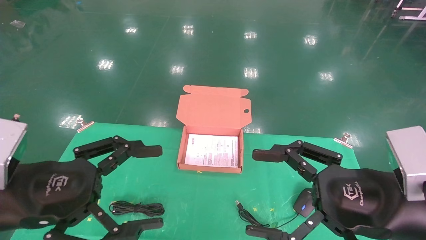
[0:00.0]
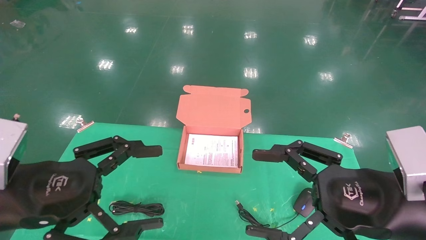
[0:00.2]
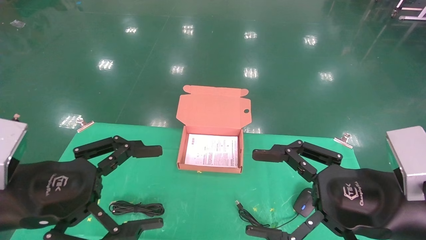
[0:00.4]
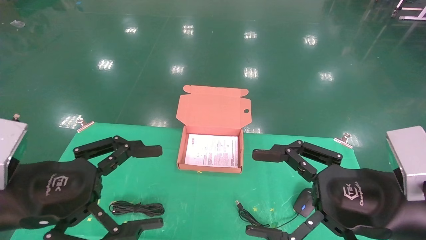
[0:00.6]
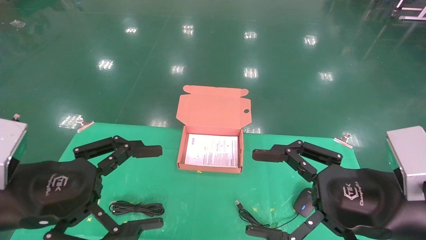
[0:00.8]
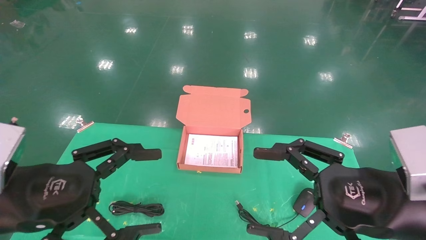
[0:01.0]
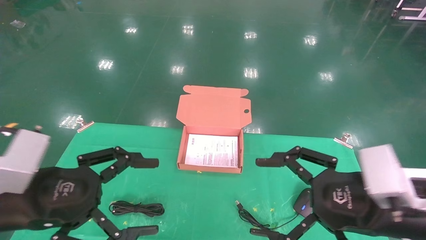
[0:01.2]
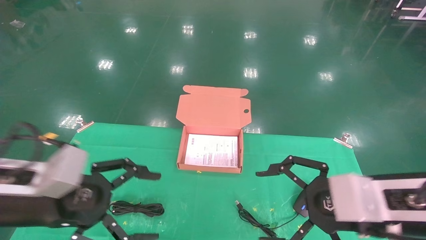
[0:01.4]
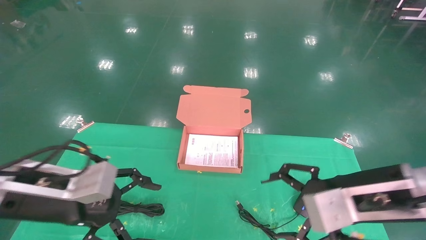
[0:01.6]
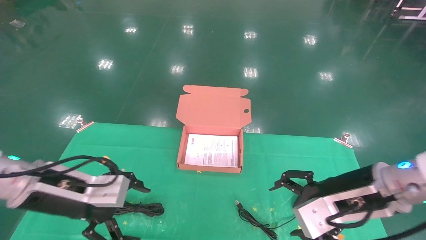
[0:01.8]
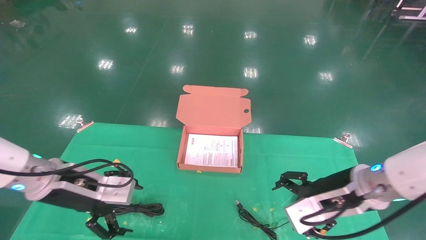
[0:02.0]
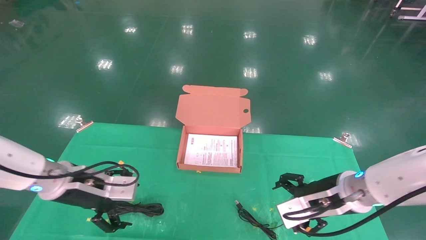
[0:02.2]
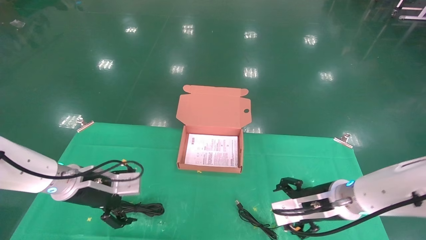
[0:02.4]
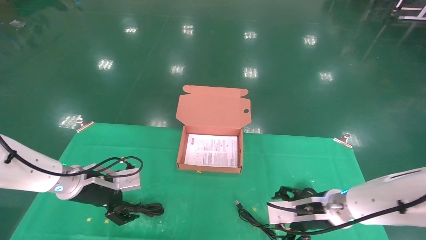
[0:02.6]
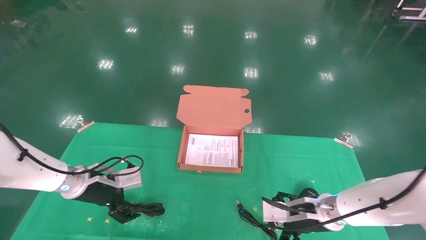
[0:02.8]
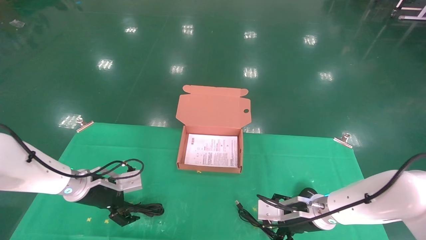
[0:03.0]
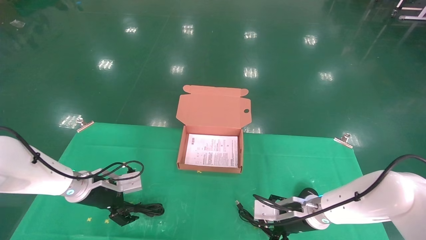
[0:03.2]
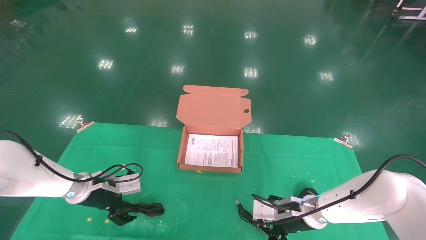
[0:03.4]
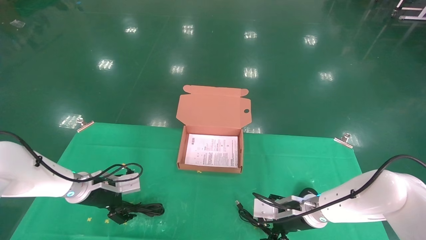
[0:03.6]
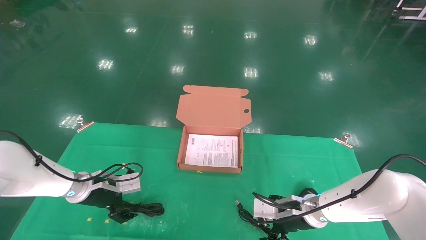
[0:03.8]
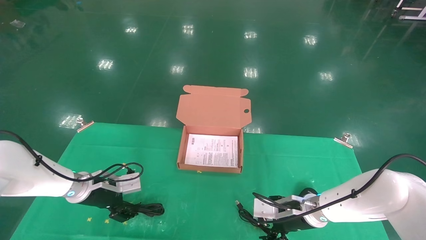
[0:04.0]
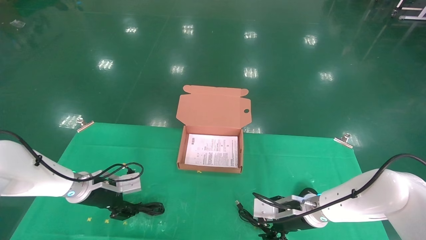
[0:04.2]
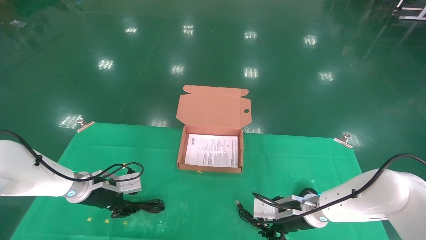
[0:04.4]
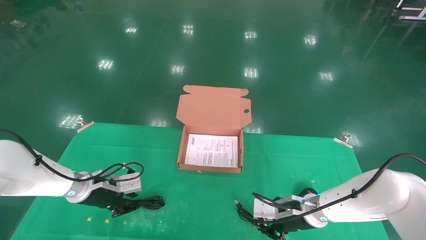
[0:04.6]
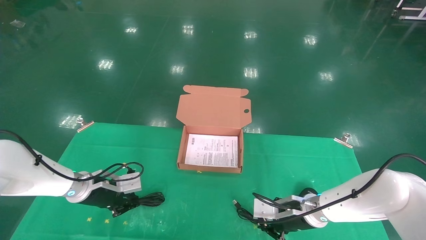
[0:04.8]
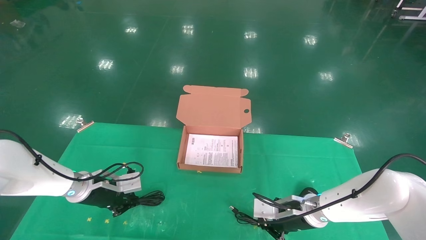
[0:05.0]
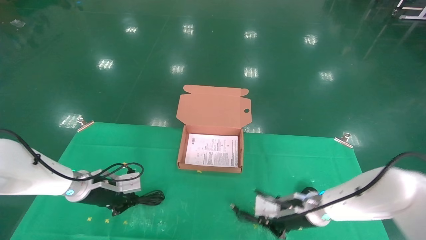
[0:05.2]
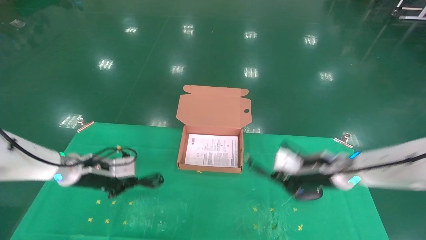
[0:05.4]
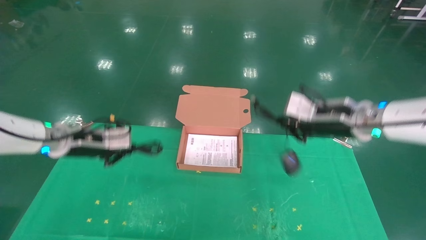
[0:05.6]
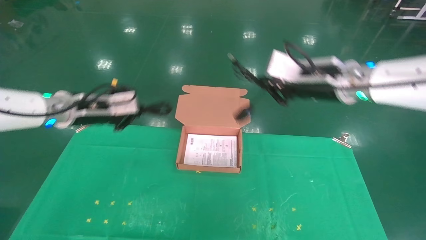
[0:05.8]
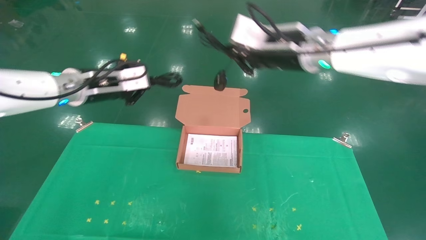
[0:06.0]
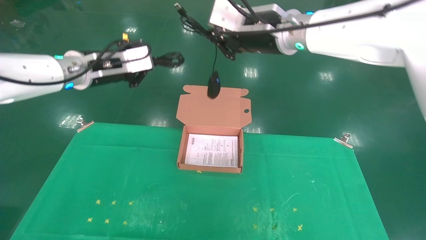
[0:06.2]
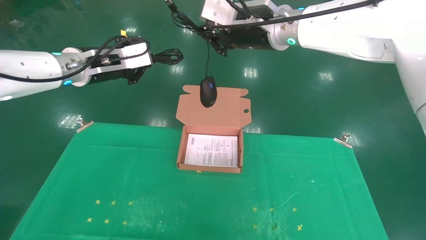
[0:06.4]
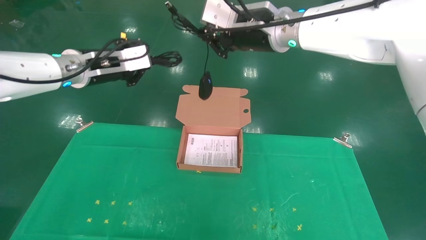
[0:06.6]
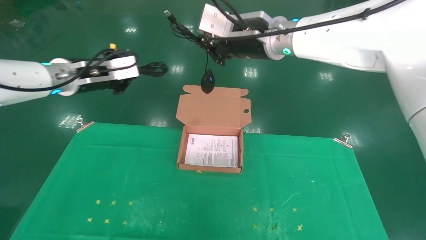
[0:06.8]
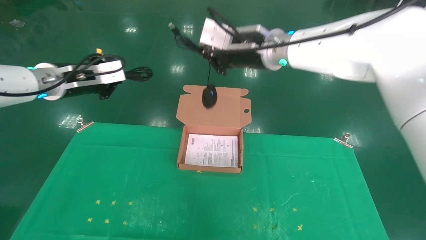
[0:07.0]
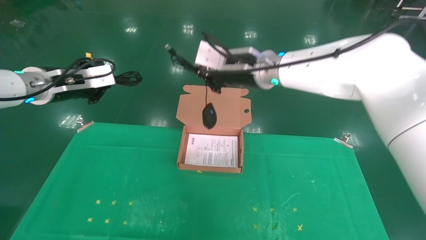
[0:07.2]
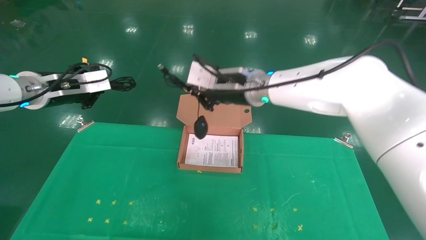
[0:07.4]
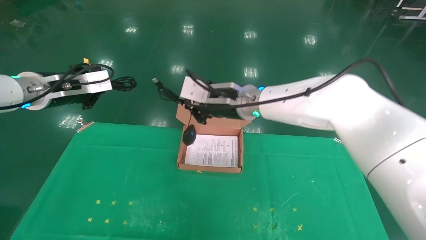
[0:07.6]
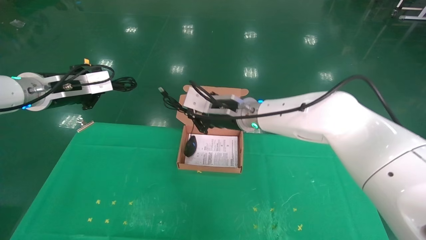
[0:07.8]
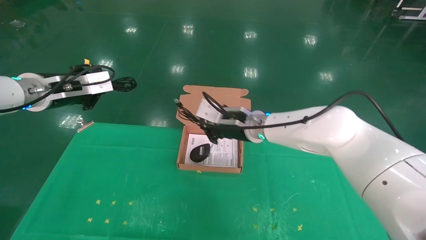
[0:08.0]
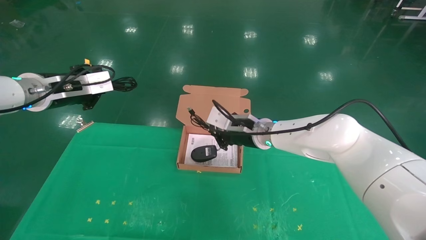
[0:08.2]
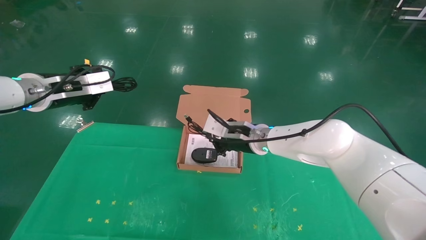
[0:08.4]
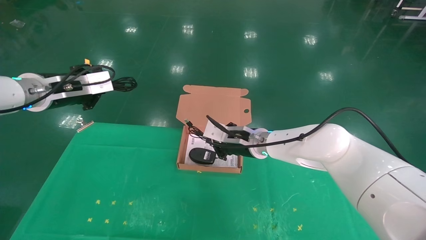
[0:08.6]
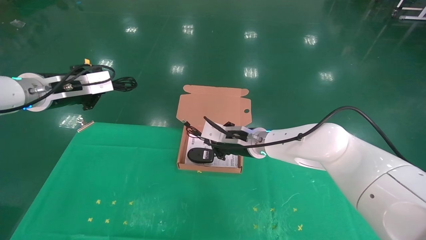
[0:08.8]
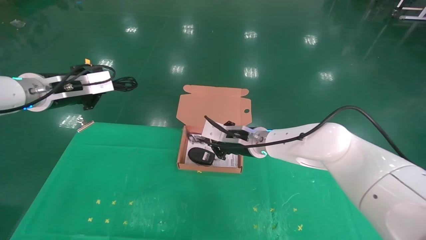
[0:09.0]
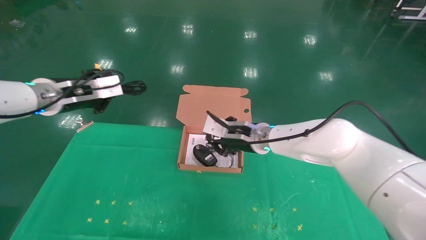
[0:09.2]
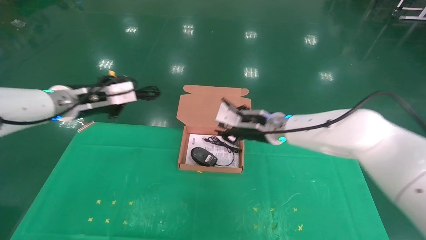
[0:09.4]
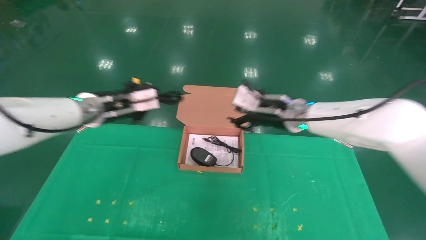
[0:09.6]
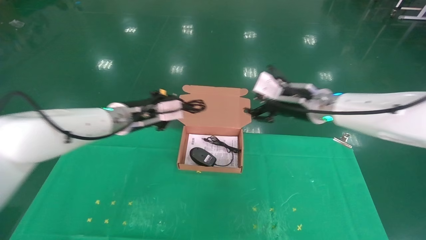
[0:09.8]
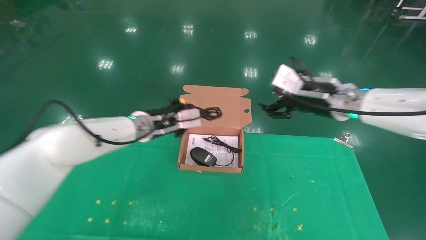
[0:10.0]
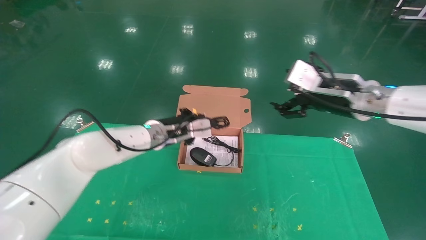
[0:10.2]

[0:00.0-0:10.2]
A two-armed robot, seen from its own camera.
Task of the whole recording: grasp data cable left put into box grasp mouse right put into box.
Step, 0:01.0 to 0:05.6: Grab and pick up both the mouse and power cord from the accessory packaging area at the same time.
0:01.4 to 0:03.0: Both grippers travel together forward and downward, about 25 cm.
0:03.0 to 0:04.4: The right gripper closes; the left gripper closes up.
0:04.4 to 0:05.8: Both grippers travel together upward, some 25 cm. The left gripper closes up, while the right gripper closes.
0:05.8 to 0:07.2: The right gripper is displaced to the left by approximately 10 cm, while the left gripper changes place by approximately 5 cm.
0:07.2 to 0:08.8: The right gripper shifts roughly 20 cm downward.
0:08.8 to 0:10.2: The left gripper shifts roughly 25 cm to the right and downward, while the right gripper goes some 25 cm to the right, upward and backward, and opens.

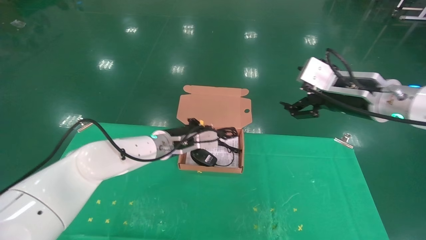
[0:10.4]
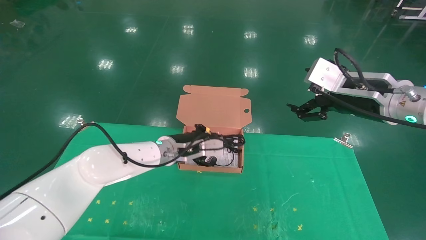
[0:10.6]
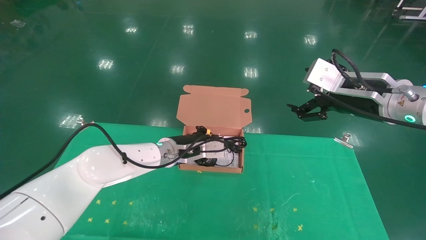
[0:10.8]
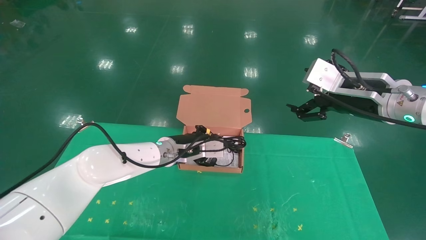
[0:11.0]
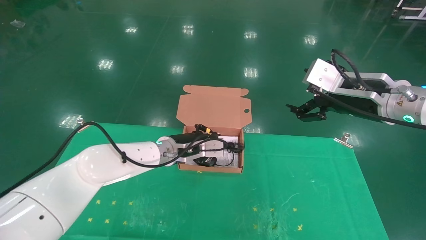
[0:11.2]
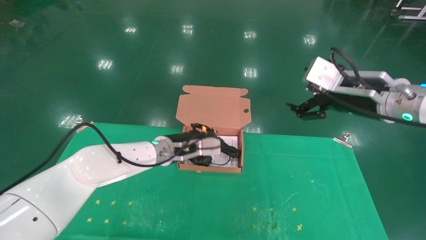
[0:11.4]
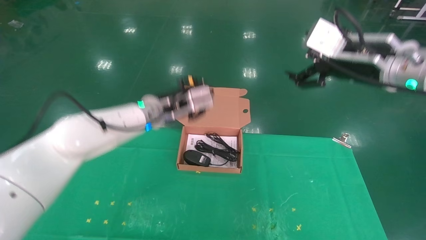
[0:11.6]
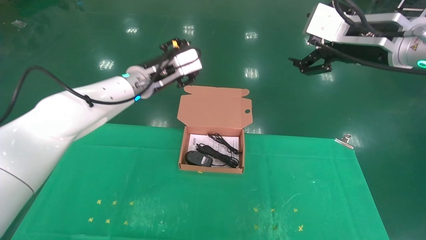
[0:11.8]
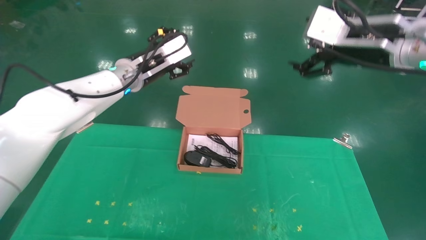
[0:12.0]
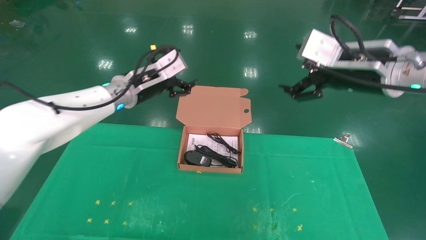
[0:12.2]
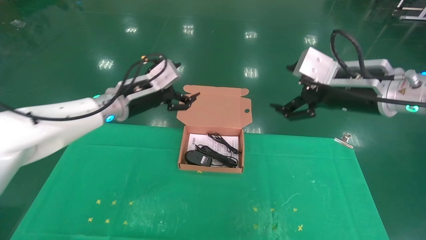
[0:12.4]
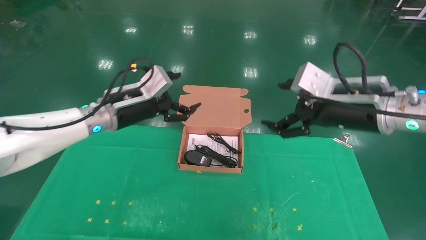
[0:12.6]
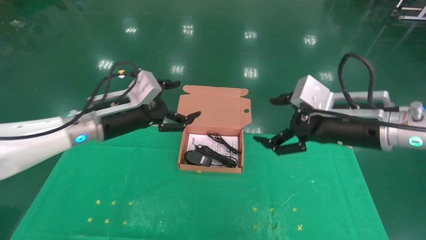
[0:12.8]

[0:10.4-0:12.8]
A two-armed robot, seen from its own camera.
Task of the whole recording: grasp data cable left put into box grasp mouse right put into box.
0:10.4 to 0:11.6: The right gripper travels upward by roughly 5 cm, while the left gripper is displaced upward by about 10 cm.
0:11.6 to 0:12.8: The right gripper moves downward, some 10 cm. Meanwhile the left gripper shifts about 10 cm to the left and backward, and opens.
